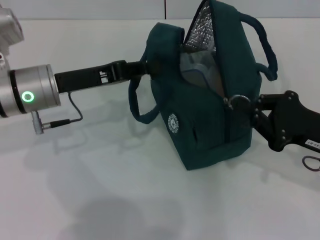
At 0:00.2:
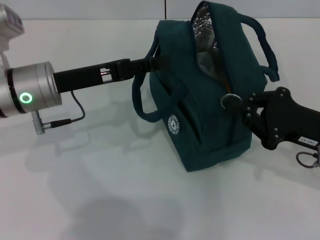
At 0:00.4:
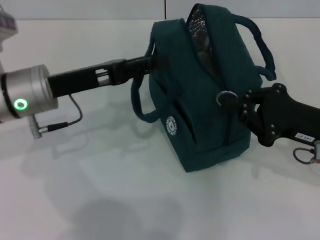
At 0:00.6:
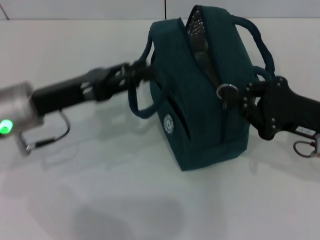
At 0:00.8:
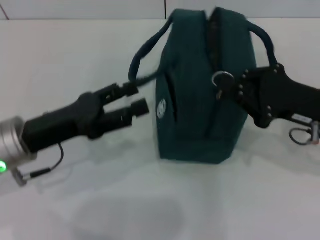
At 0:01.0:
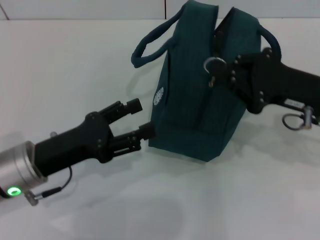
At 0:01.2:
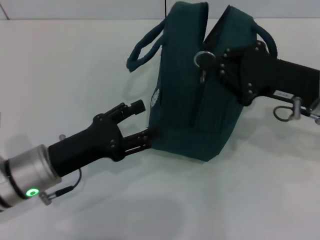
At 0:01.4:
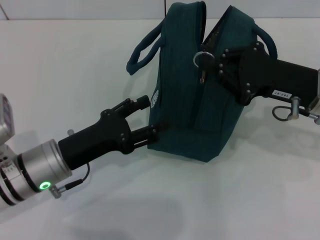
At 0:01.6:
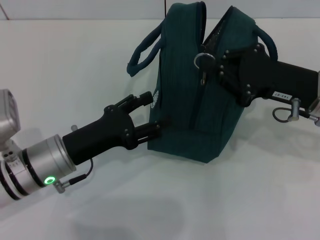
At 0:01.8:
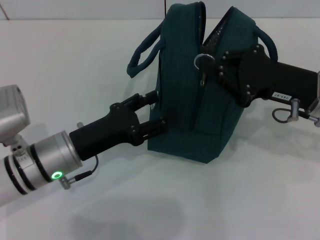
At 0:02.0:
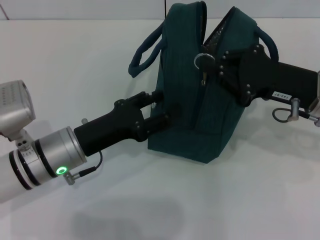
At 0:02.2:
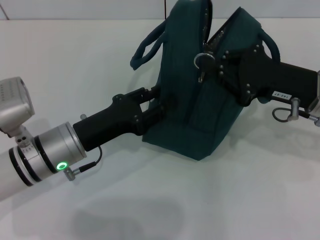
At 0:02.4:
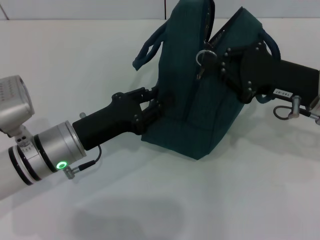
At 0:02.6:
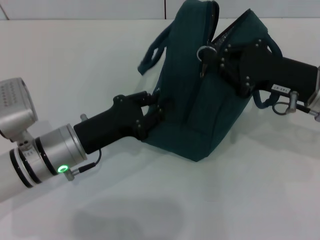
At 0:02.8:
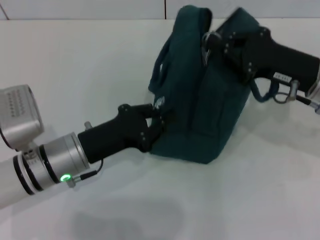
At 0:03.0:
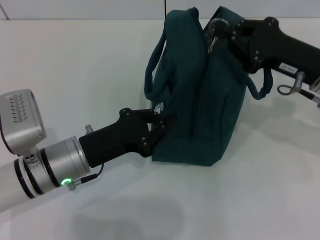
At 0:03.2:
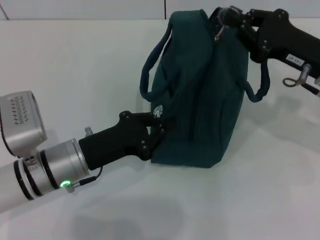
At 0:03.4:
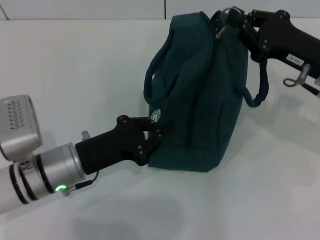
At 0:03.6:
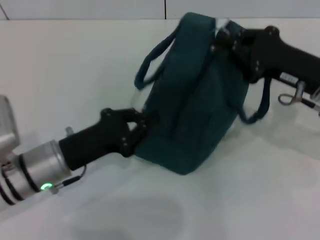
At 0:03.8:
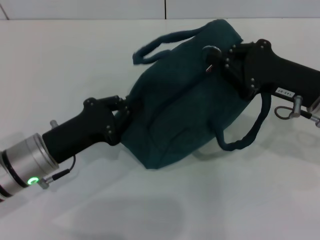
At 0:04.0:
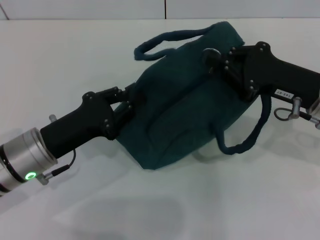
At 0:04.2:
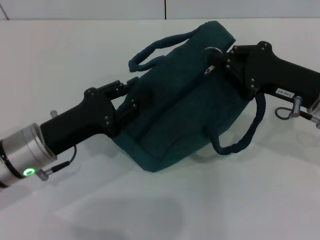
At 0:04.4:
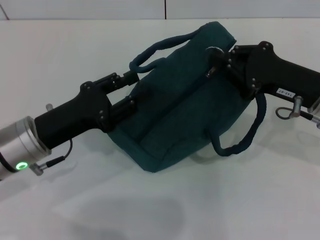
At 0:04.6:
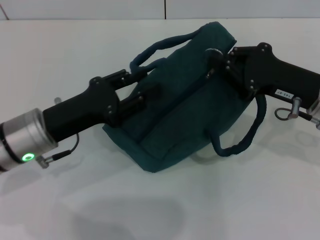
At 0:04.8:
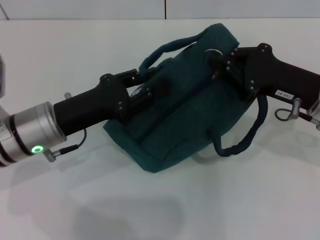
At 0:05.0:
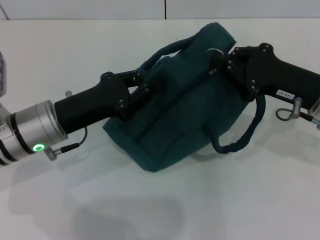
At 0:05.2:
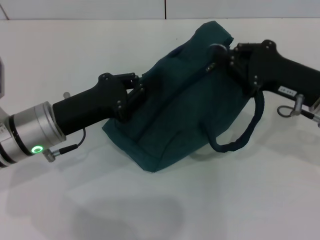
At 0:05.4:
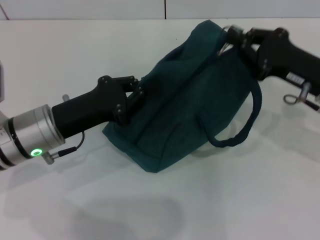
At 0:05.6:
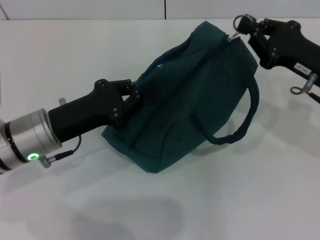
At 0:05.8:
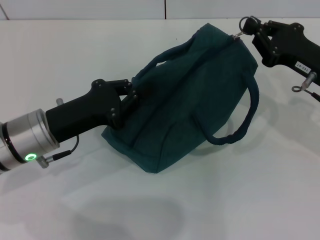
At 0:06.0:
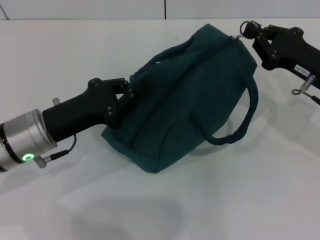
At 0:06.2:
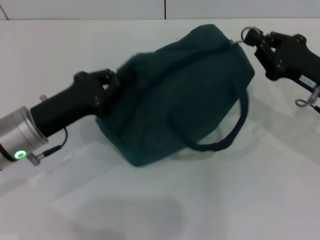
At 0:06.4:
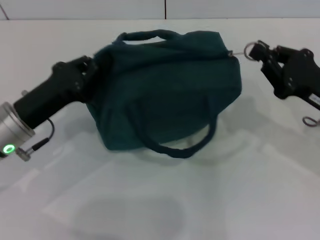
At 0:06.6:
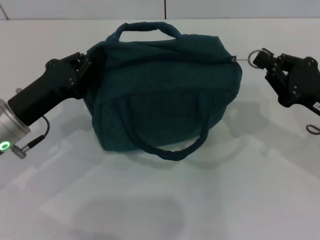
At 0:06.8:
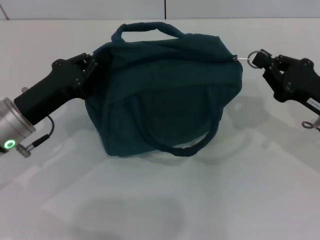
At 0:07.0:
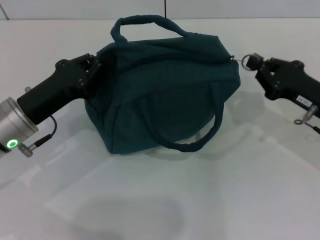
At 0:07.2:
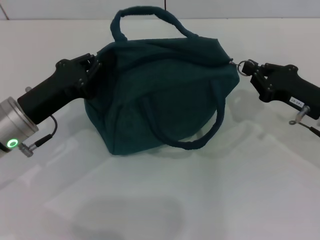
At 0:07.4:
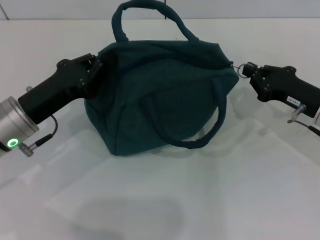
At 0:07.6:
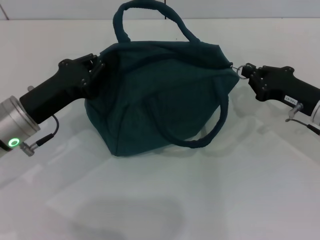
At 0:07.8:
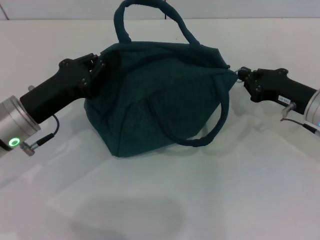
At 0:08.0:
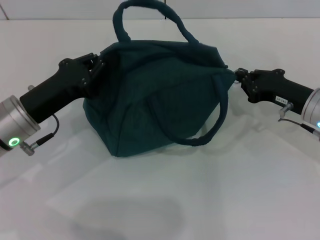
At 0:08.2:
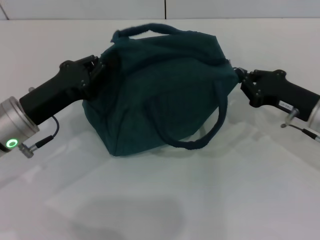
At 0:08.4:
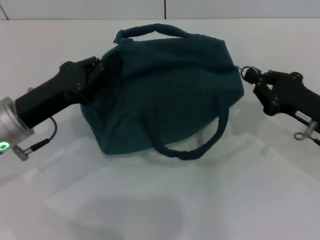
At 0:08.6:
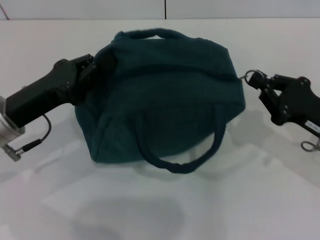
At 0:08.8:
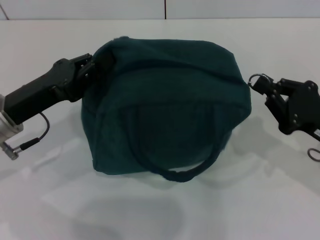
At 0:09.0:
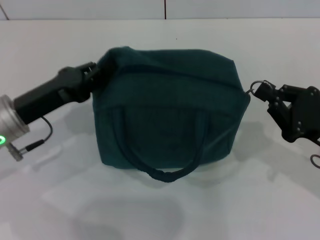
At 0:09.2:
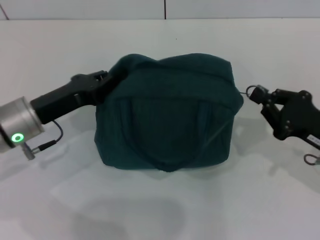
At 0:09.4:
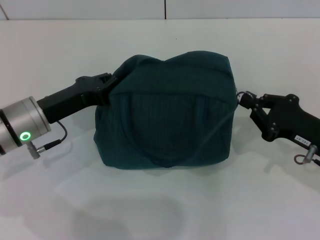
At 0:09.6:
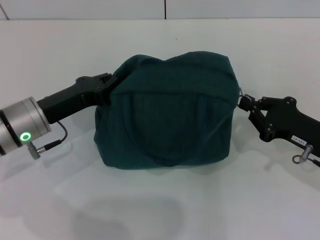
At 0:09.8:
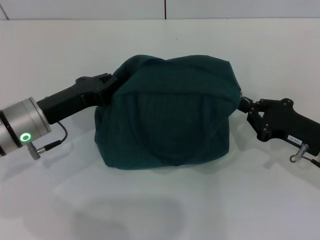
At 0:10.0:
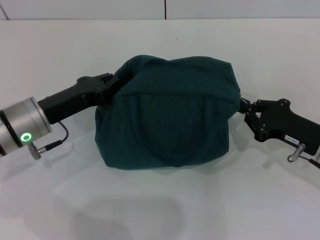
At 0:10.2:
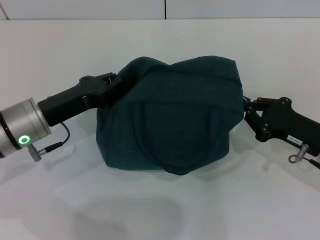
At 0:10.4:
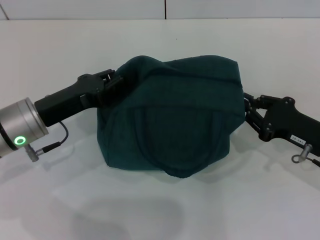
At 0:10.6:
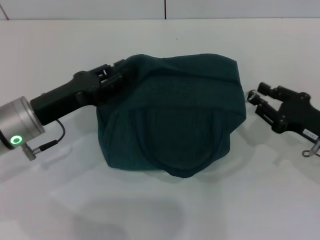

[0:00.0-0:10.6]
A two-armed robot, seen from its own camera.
0:00.0 to 0:01.6: The right gripper heads forward, covering some 5 cm, while the left gripper moves backward and downward, approximately 10 cm, and opens up.
0:01.6 to 0:03.0: The left gripper closes up.
0:03.0 to 0:04.6: The left gripper moves about 5 cm, and opens.
0:04.6 to 0:06.0: The left gripper closes its fingers.
0:07.6 to 0:09.0: The right gripper is displaced backward by about 10 cm.

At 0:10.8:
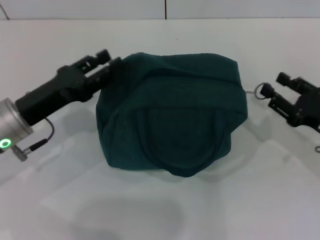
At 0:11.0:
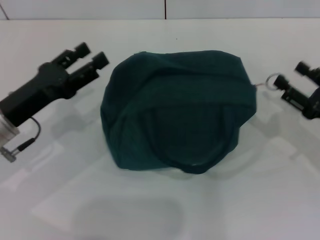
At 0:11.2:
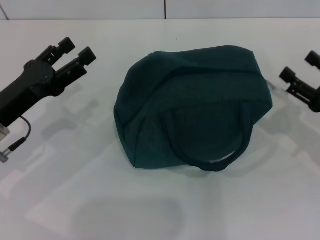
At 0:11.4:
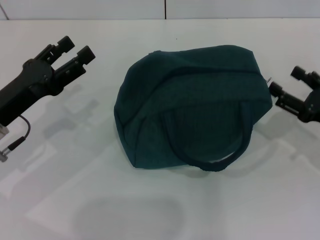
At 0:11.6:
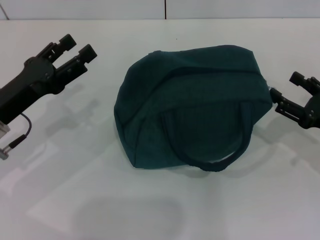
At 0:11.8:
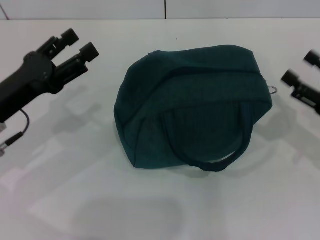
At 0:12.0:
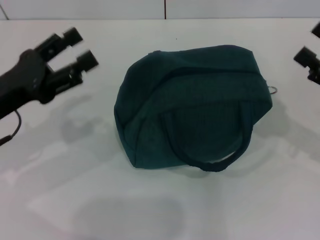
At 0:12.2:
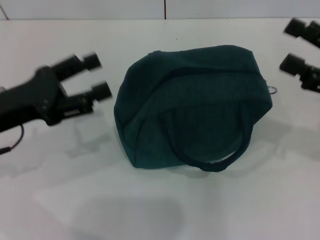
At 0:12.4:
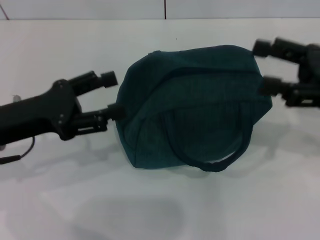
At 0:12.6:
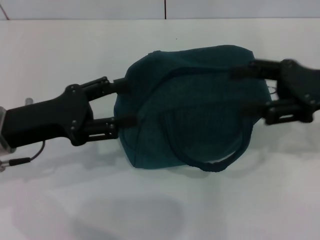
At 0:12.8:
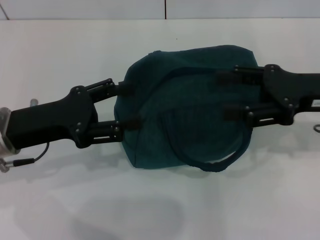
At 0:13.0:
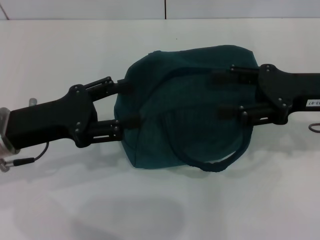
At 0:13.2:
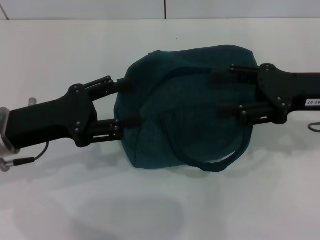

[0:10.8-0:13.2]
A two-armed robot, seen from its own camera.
Step, 0:11.2 to 0:11.6: Zip up the lunch bag with your right hand.
0:10.8 to 0:12.0: The right gripper heads upward, covering about 5 cm, and opens up. Meanwhile the left gripper changes place by some 5 cm, and opens up.
0:12.0 to 0:13.2: The right gripper goes approximately 5 cm to the left.
